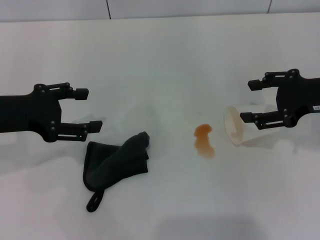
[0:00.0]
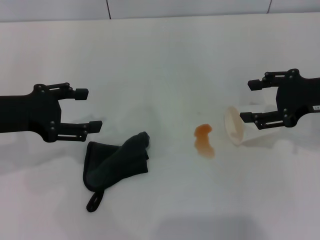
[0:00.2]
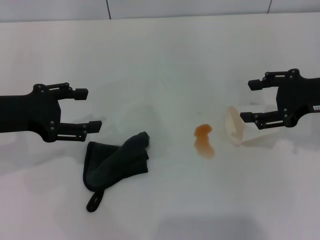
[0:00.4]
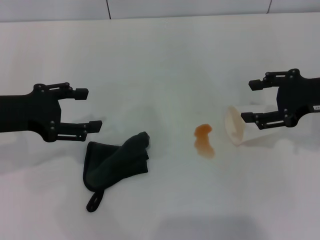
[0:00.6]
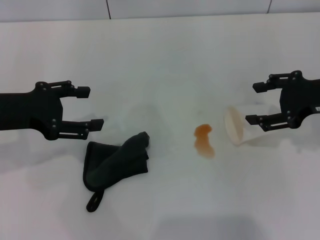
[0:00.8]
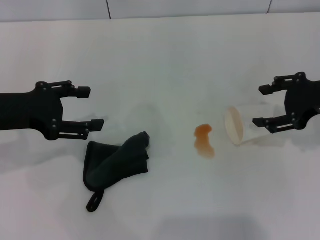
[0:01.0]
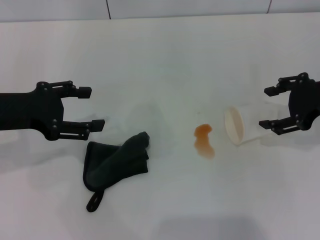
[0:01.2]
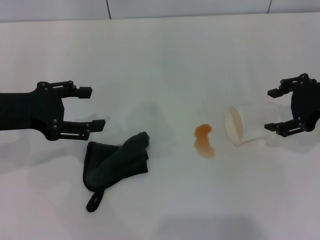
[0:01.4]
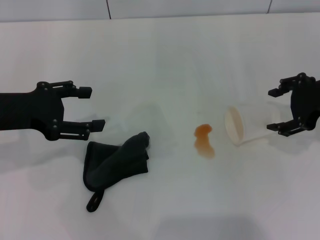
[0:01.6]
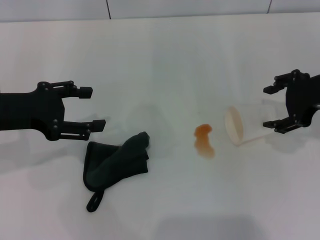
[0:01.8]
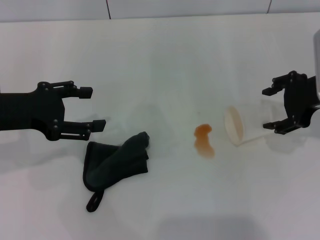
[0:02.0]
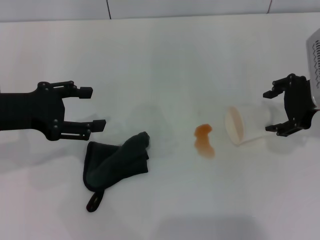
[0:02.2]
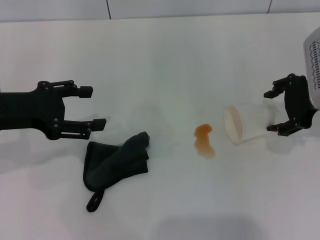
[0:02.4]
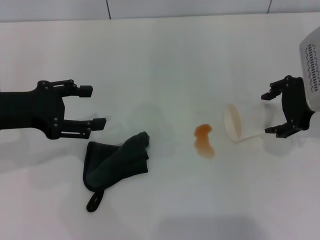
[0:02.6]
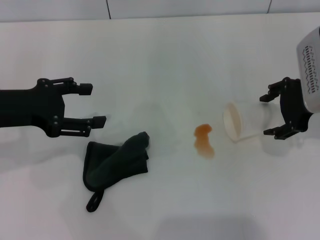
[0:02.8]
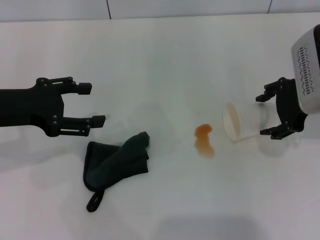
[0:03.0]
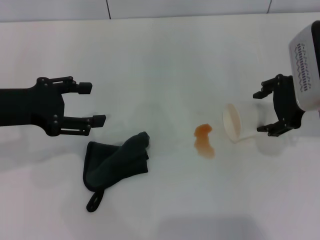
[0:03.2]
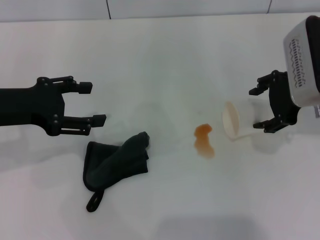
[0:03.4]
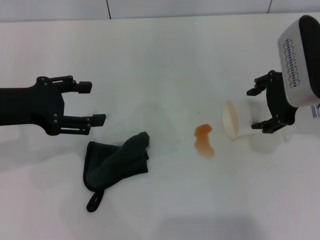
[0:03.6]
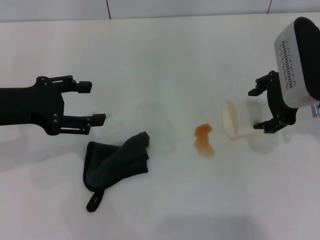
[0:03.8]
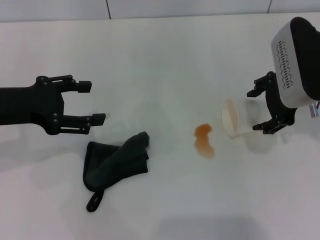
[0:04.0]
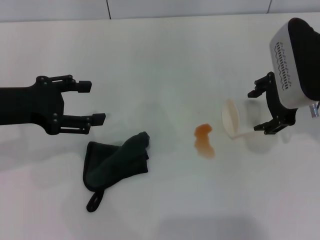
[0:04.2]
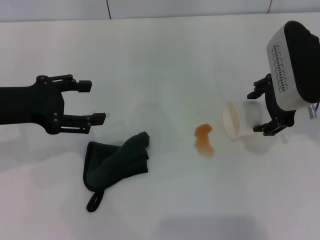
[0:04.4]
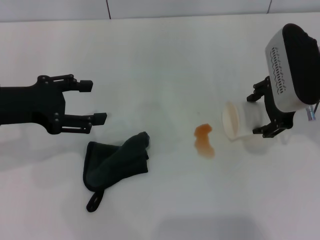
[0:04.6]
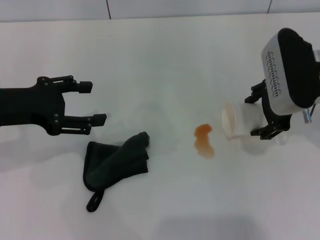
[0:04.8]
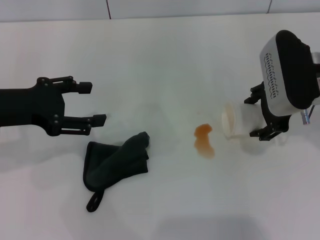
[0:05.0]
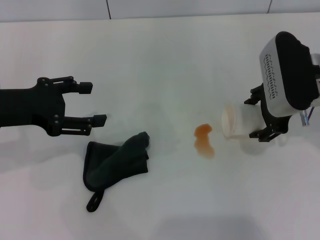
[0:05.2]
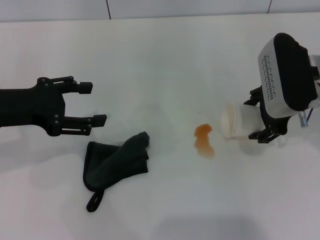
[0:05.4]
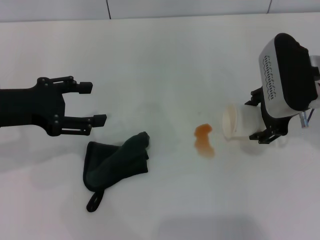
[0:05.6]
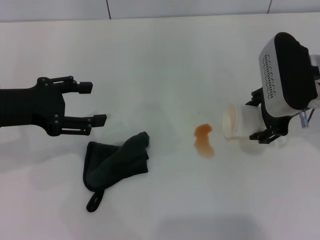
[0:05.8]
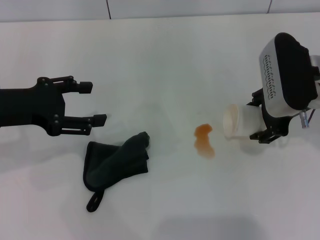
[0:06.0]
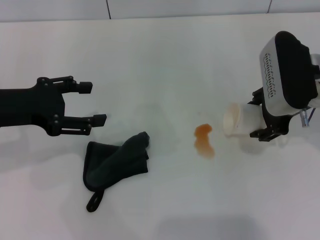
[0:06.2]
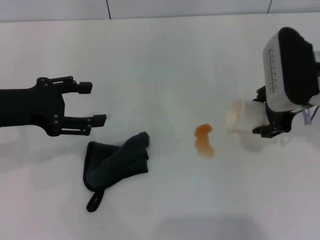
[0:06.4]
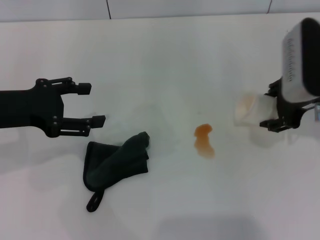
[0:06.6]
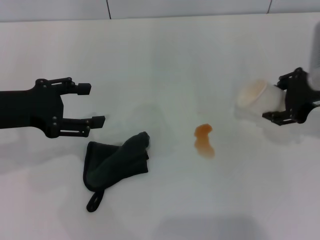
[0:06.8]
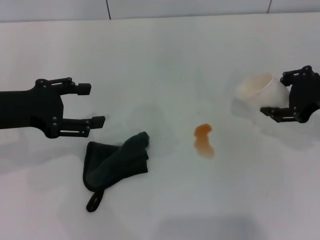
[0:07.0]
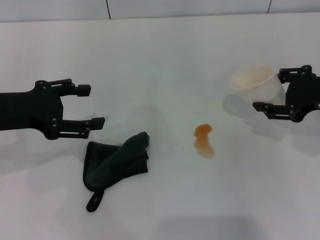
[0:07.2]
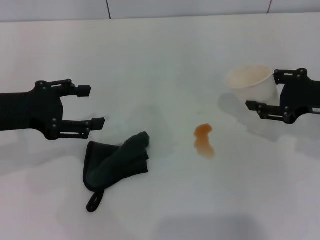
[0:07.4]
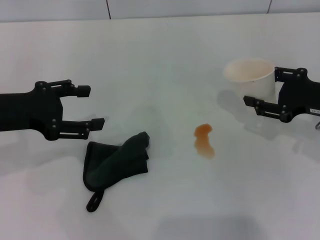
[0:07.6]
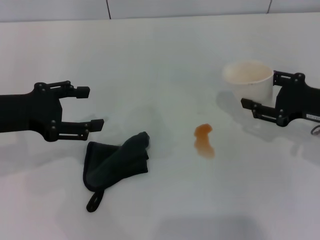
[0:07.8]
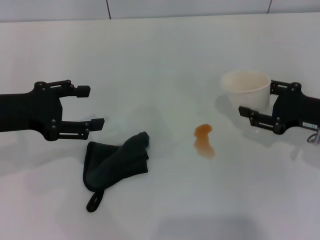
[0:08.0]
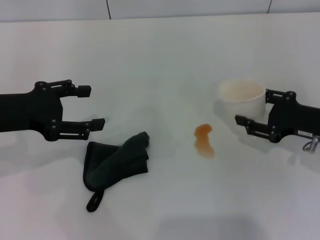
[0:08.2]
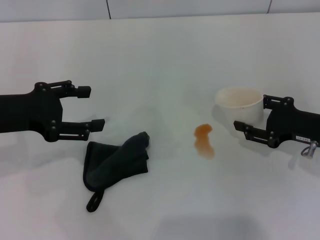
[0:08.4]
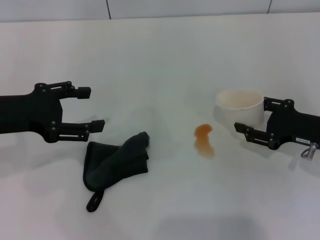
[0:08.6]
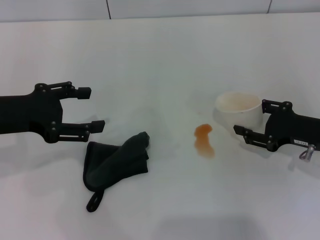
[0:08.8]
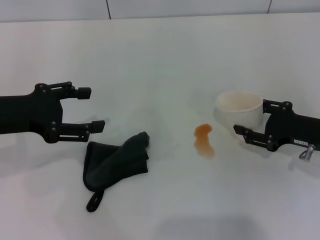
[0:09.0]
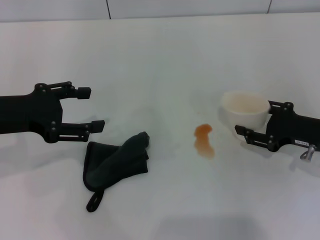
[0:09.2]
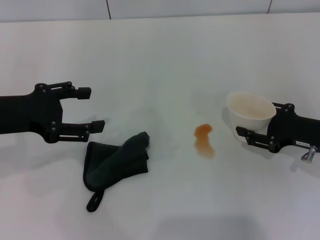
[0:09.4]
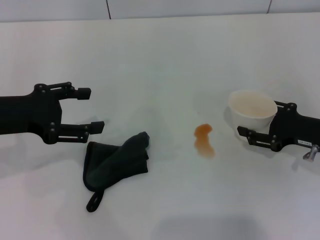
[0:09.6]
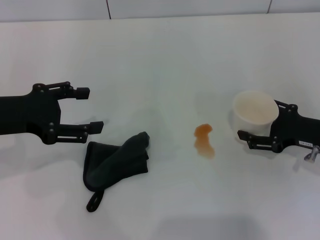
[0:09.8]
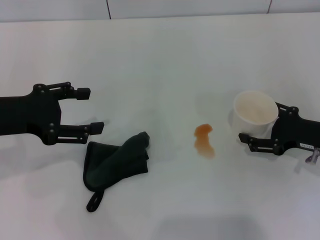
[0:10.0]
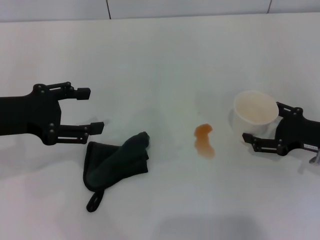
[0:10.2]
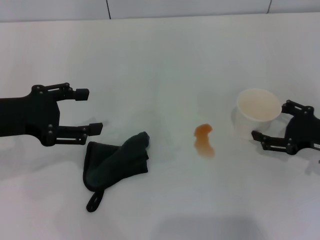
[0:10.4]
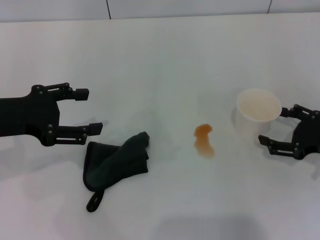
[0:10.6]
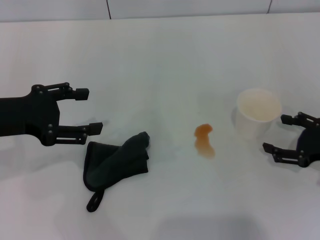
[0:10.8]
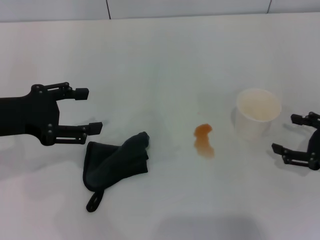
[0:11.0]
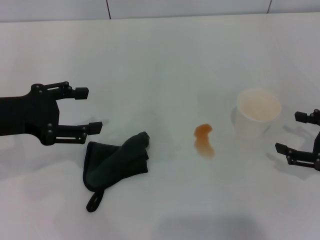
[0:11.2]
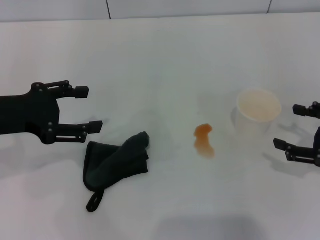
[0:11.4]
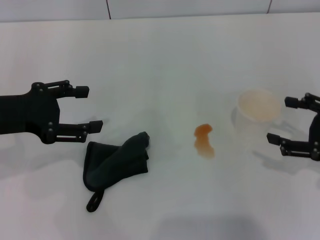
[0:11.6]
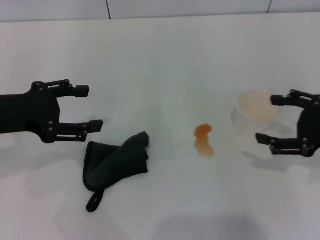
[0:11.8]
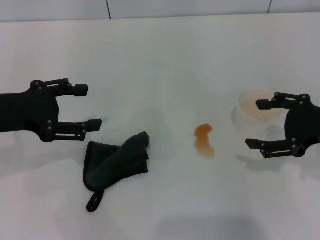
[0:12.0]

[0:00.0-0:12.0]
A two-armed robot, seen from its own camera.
Step, 0:00.0 to 0:06.2: Grasp the paper cup with the right gripper.
Step, 0:06.6 to 0:10.6: Stand the paper cup upright with the right gripper.
0:01.6 to 0:03.0: There are only small adjustments of the grippers.
0:03.0 to 0:06.0: There are only small adjustments of the grippers.
0:06.0 to 0:07.6: The right gripper goes some 10 cm to the right, and closes its fingers.
0:07.6 to 0:09.0: The right gripper shifts approximately 5 cm downward.
0:09.0 to 0:10.4: The right gripper opens up.
0:10.4 to 0:12.0: The right gripper heads upward, covering some 10 cm.

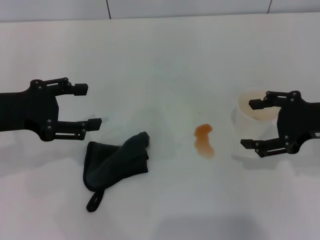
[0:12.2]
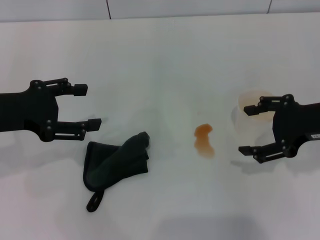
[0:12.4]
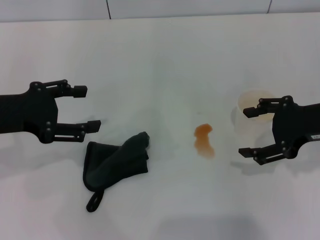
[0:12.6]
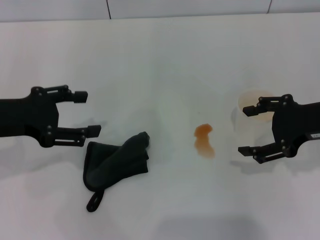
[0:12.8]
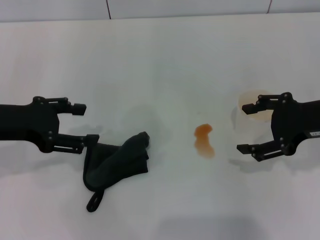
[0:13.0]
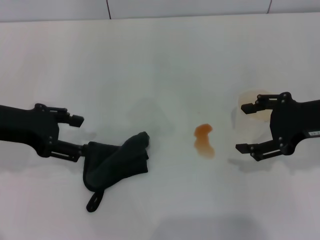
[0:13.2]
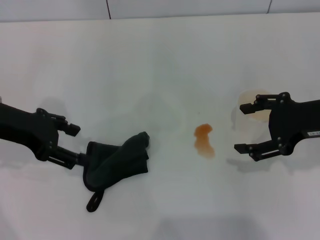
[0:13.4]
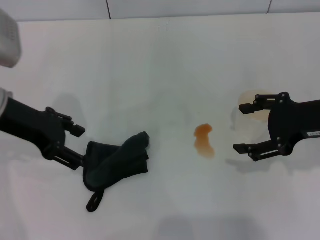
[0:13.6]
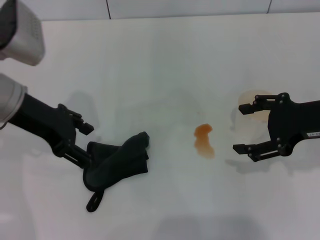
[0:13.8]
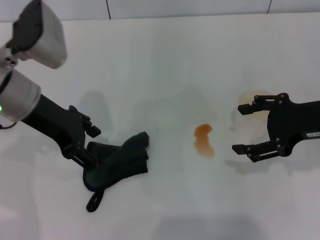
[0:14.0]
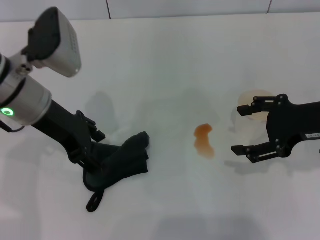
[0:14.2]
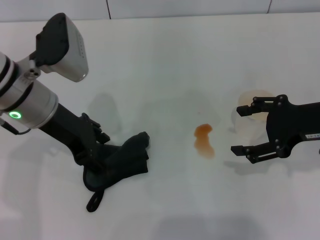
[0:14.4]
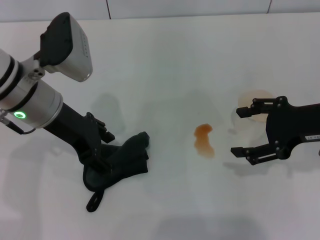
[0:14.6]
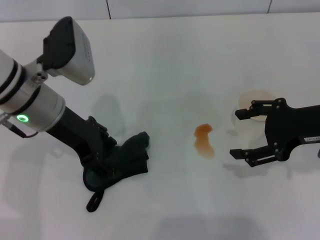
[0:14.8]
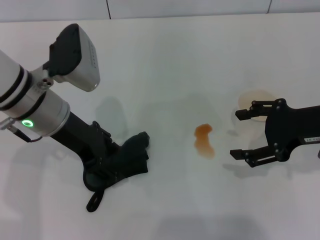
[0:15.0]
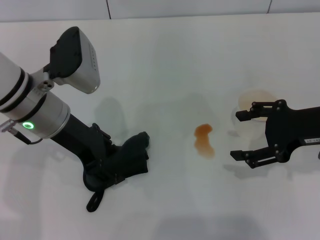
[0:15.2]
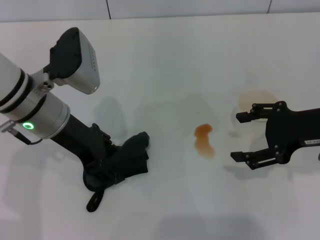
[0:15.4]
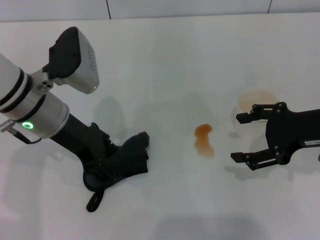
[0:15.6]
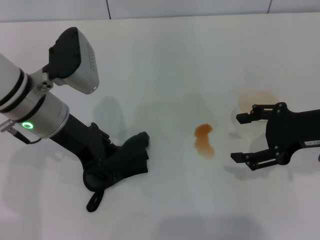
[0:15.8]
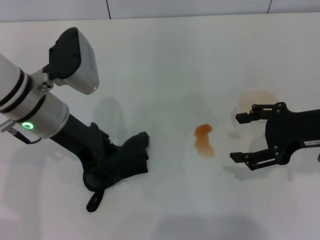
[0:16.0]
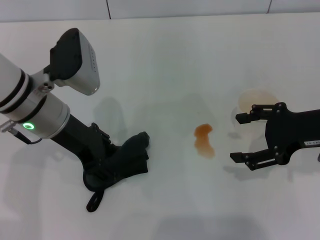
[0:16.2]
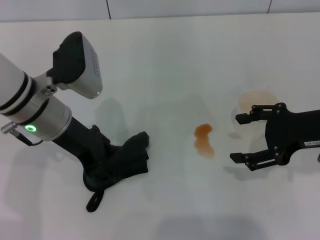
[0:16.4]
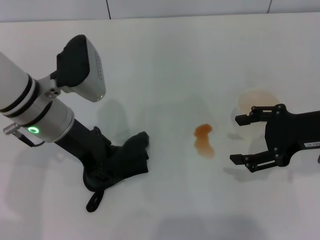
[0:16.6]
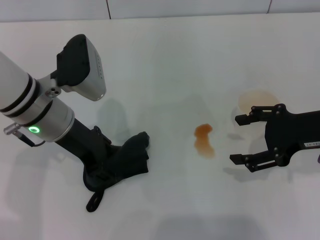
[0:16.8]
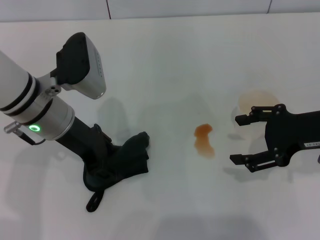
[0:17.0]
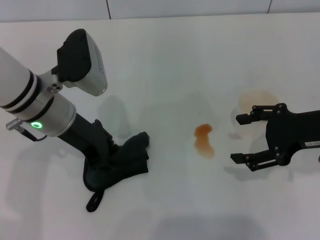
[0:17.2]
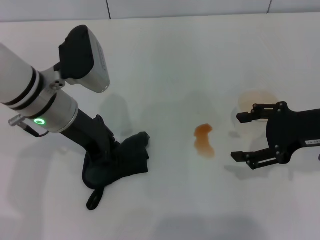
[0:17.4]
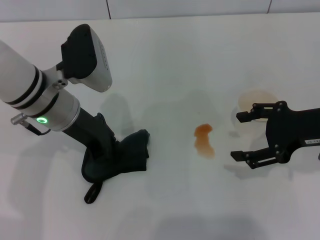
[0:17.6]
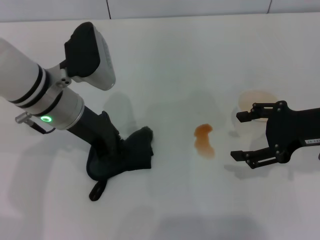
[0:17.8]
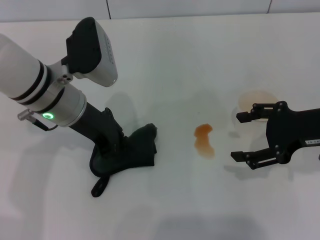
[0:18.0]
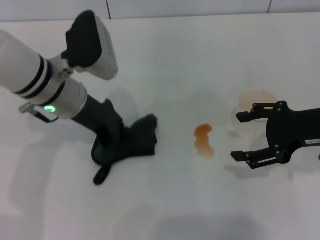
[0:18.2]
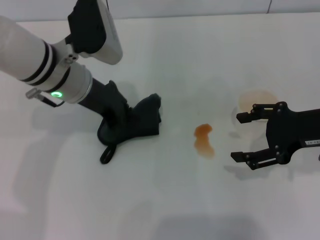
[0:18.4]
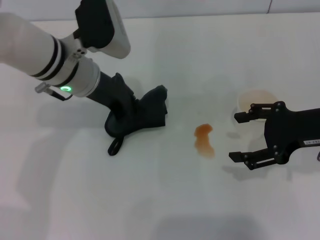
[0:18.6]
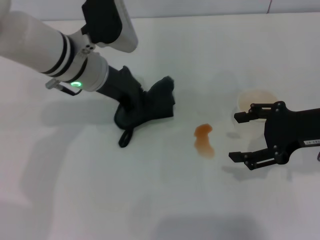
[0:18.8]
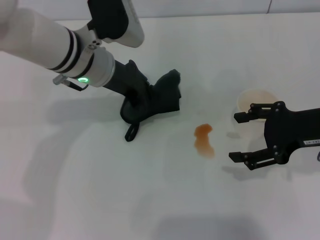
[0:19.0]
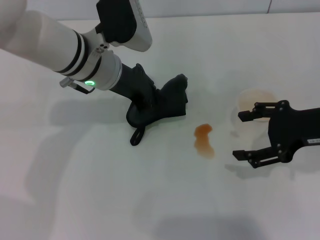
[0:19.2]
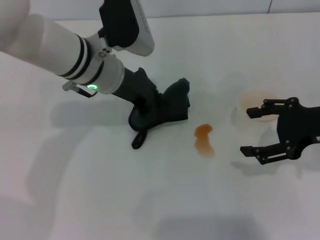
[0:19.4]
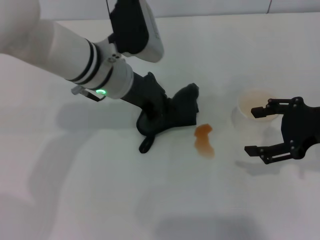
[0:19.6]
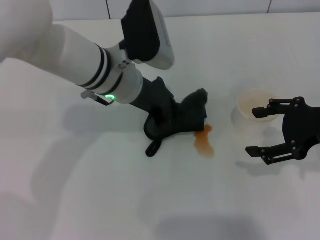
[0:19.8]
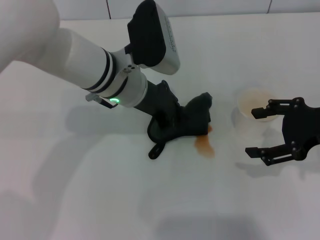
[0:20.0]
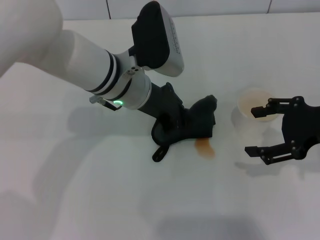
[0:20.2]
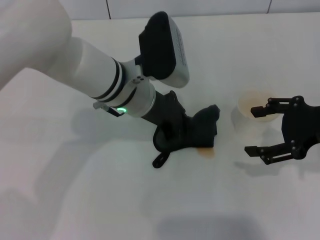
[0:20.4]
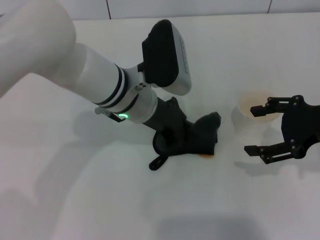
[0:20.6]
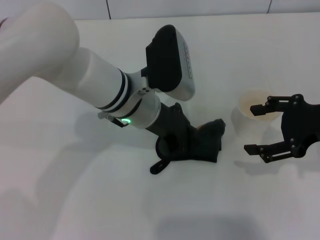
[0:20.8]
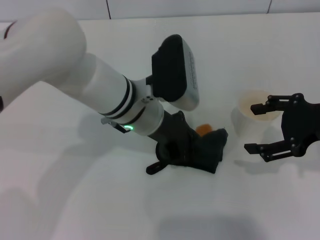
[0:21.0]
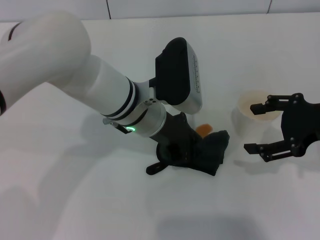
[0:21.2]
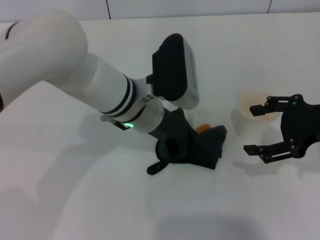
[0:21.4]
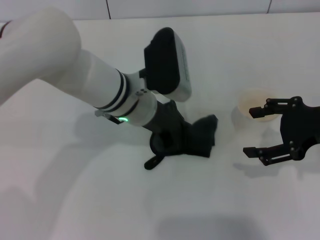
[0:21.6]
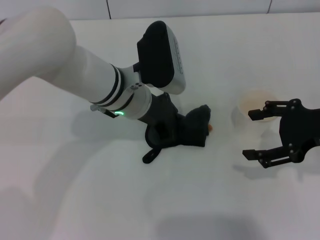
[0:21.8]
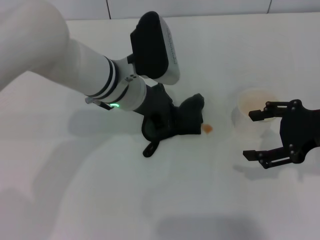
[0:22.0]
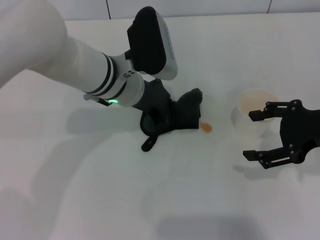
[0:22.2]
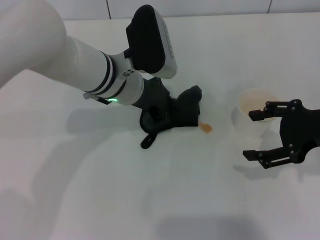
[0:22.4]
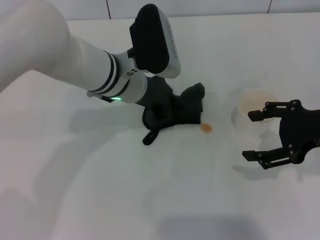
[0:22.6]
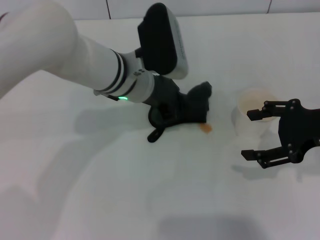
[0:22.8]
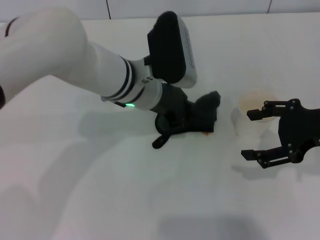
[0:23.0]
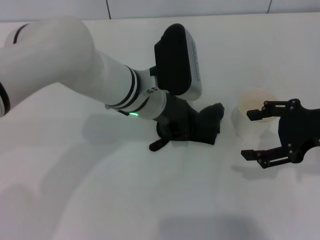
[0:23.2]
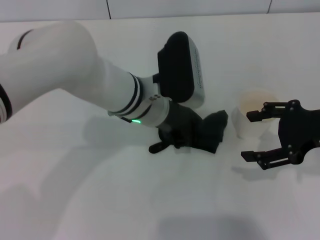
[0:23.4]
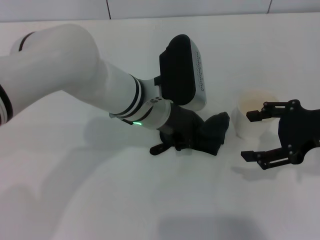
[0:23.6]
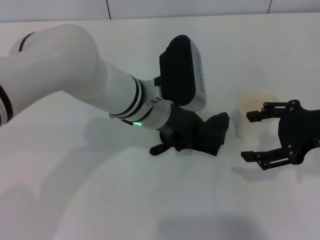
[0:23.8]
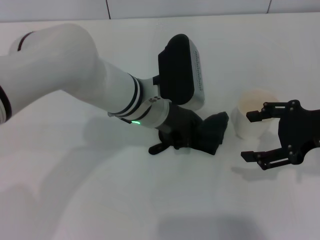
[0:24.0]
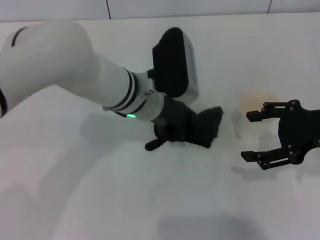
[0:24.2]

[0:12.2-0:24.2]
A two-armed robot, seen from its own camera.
Step, 0:12.2 to 0:18.0: Grasp the rag with the left gripper.
0:12.2 to 0:13.8: The left gripper shifts roughly 5 cm to the right.
0:13.8 to 0:15.2: The left gripper goes roughly 5 cm to the right.
0:15.2 to 0:16.6: Neither gripper changes place.
0:16.6 to 0:18.2: The left gripper closes.
0:18.2 to 0:19.8: The left gripper moves to the right, approximately 5 cm.
0:19.8 to 0:21.2: The left gripper changes place by about 5 cm.
0:22.6 to 0:24.2: The grippers make only small movements.
